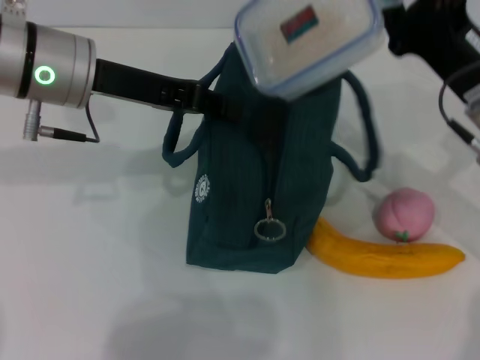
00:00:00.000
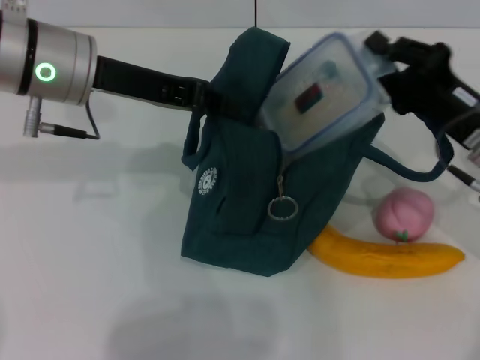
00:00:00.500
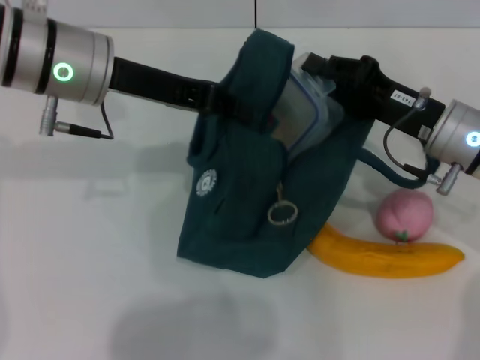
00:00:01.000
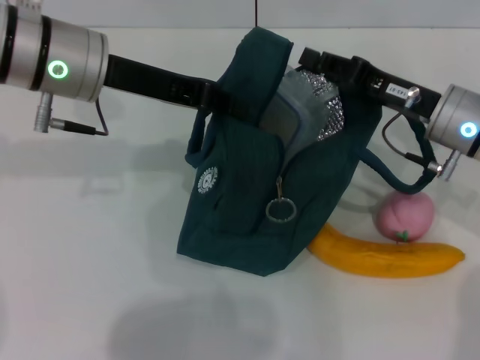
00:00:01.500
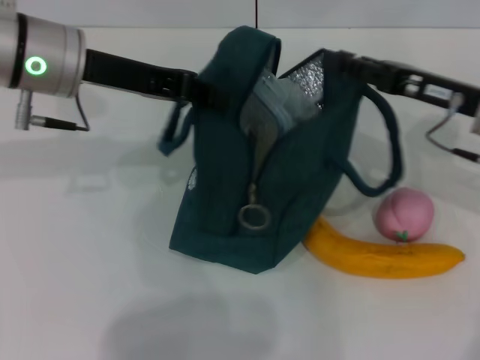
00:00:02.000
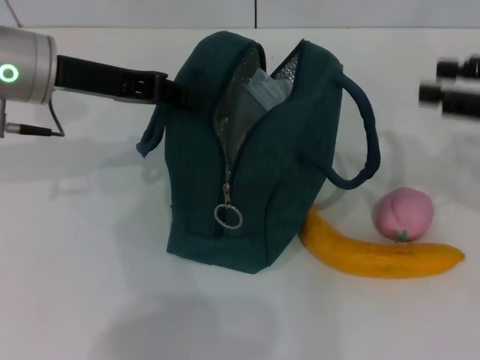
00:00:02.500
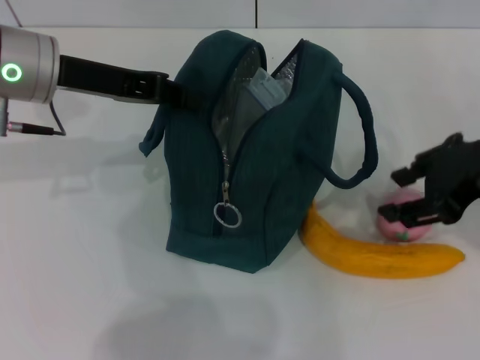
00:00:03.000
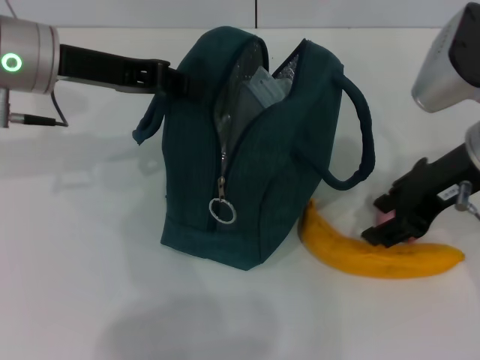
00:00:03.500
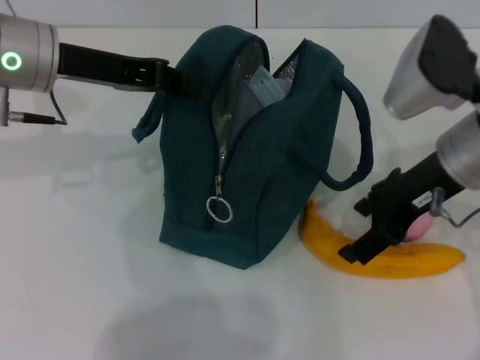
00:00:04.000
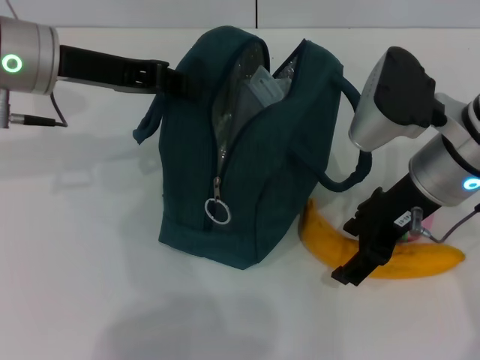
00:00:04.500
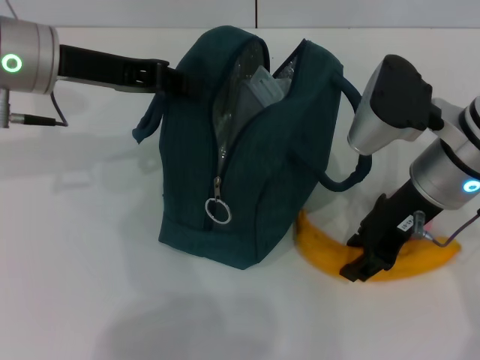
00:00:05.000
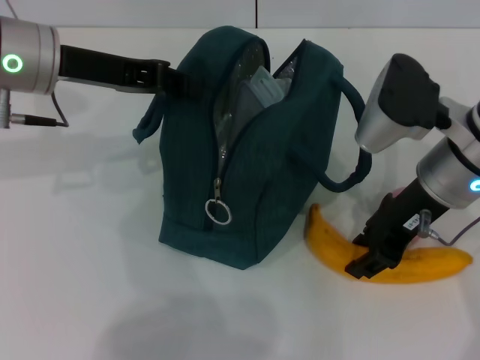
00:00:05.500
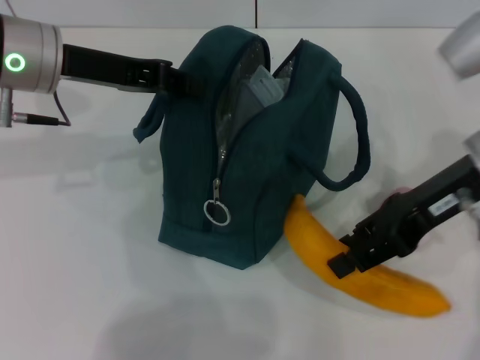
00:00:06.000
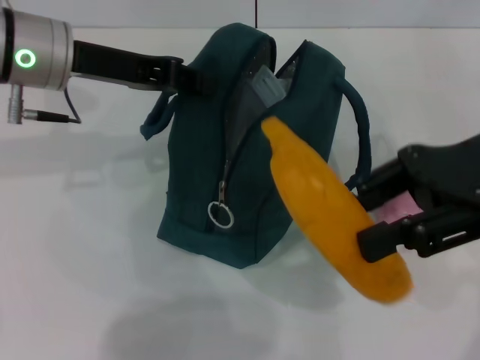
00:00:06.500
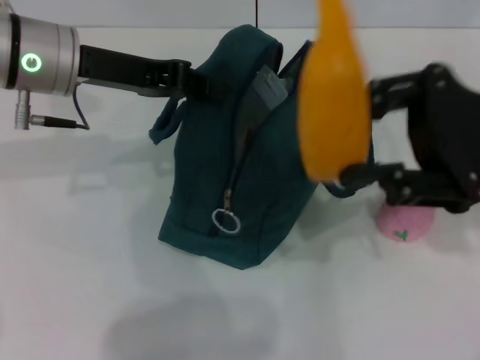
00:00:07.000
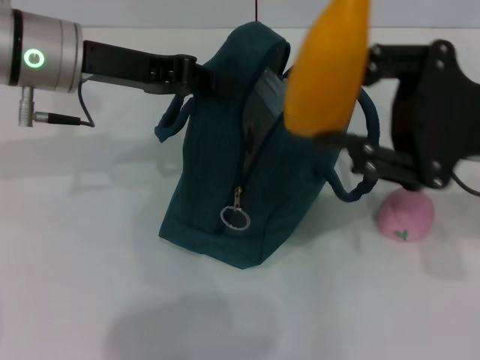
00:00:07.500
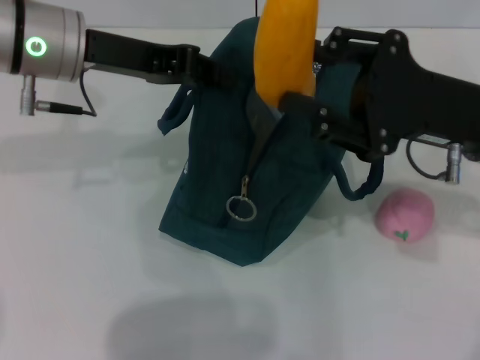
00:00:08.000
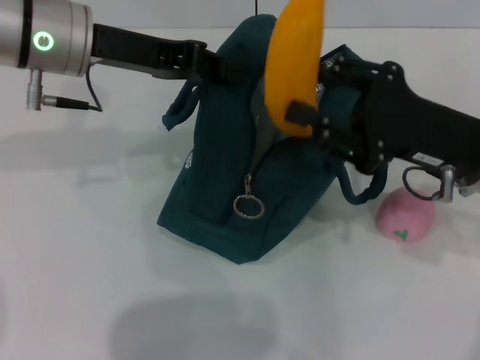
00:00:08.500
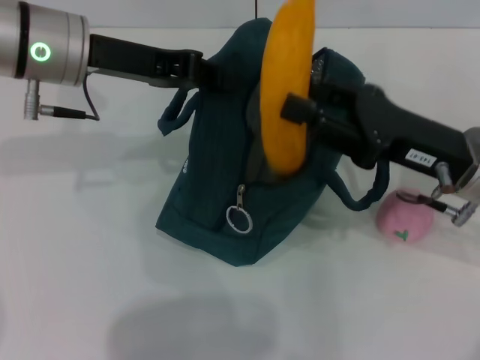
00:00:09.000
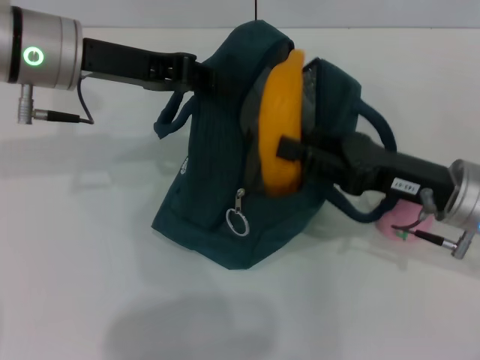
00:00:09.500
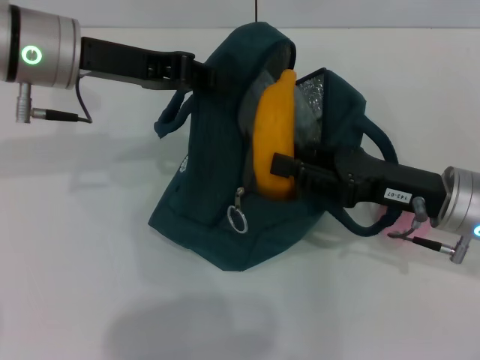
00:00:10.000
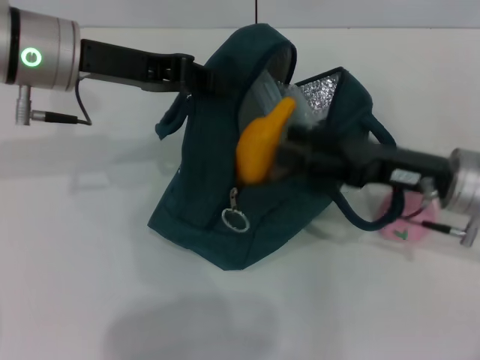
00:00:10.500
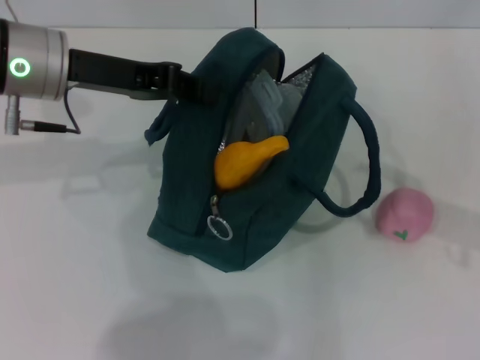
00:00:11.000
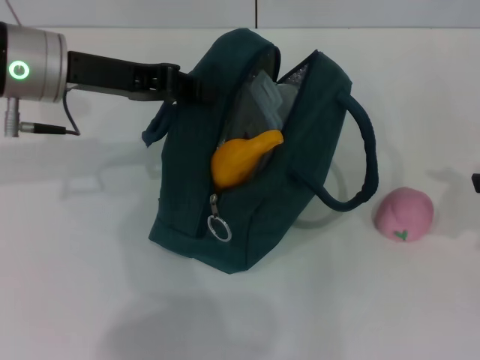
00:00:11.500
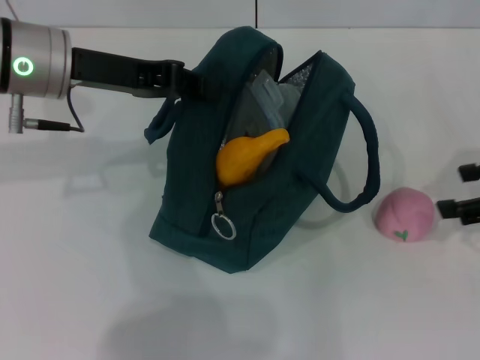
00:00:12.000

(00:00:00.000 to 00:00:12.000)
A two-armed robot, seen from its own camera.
Step, 00:00:02.000 - 00:00:05.000: Take the banana with your right hand.
Step, 00:00:05.500 - 00:00:10.500: Put the banana into the lunch bag with your right hand.
00:00:00.000 - 00:00:02.000: The right gripper opens.
00:00:02.000 - 00:00:04.000: The right gripper heads to the left and upward, covering about 10 cm, and opens its fingers.
00:00:04.000 - 00:00:06.000: The right gripper closes its fingers.
00:00:08.000 - 00:00:10.000: The right gripper is displaced downward by roughly 5 cm.
00:00:10.000 - 00:00:12.000: The right gripper travels to the right and upward by roughly 15 cm.

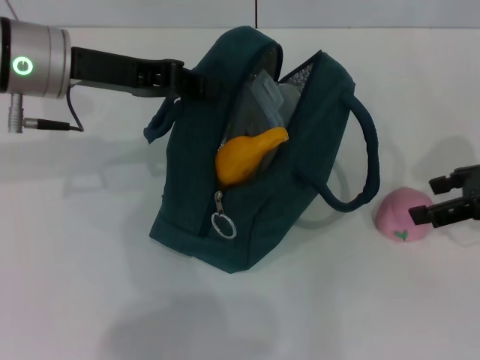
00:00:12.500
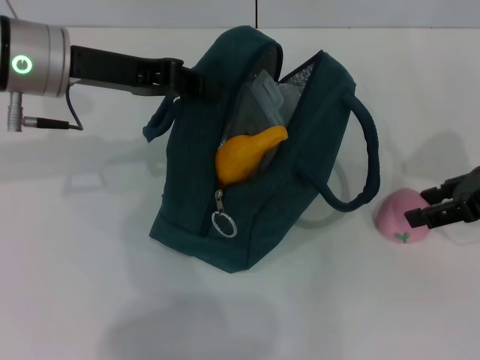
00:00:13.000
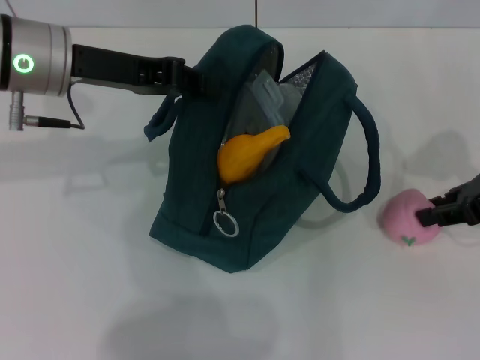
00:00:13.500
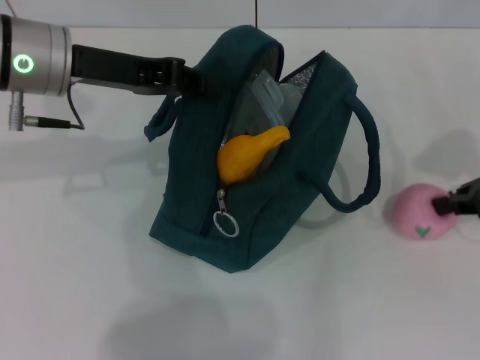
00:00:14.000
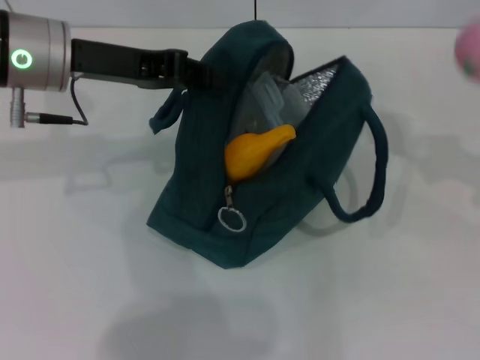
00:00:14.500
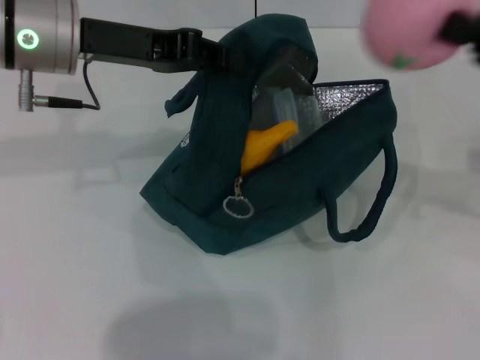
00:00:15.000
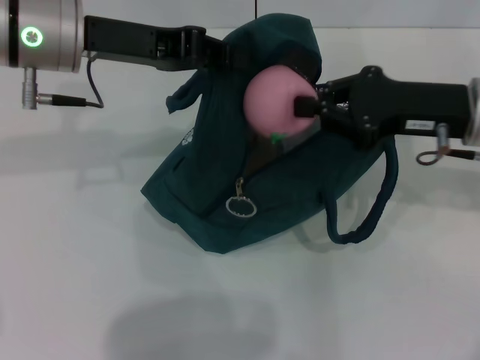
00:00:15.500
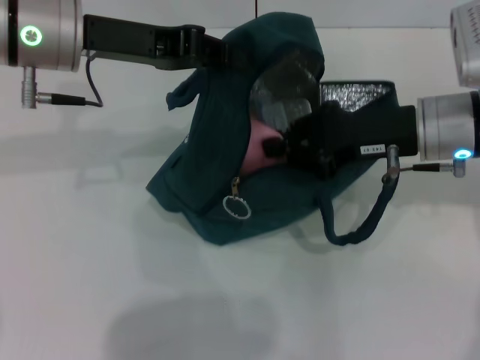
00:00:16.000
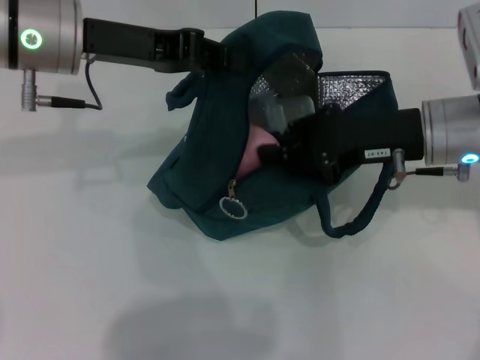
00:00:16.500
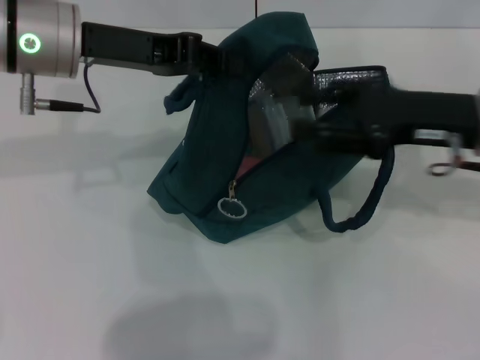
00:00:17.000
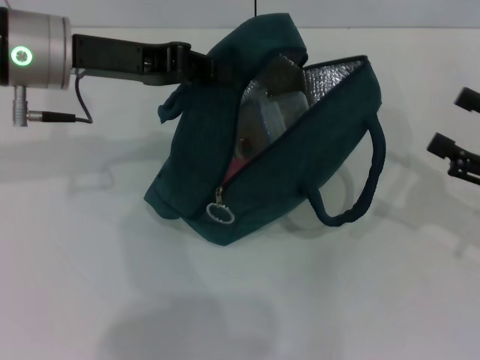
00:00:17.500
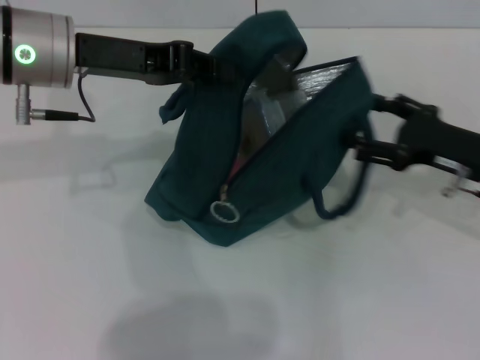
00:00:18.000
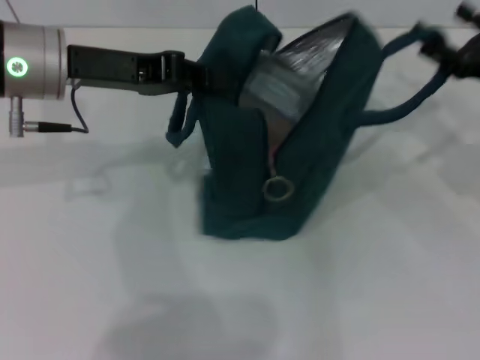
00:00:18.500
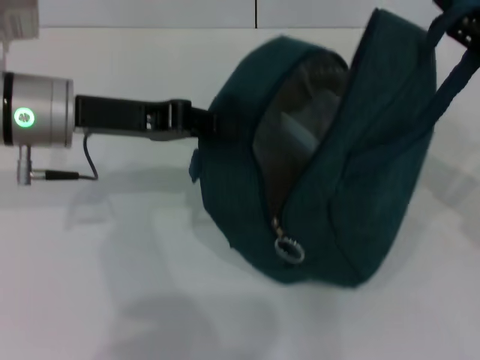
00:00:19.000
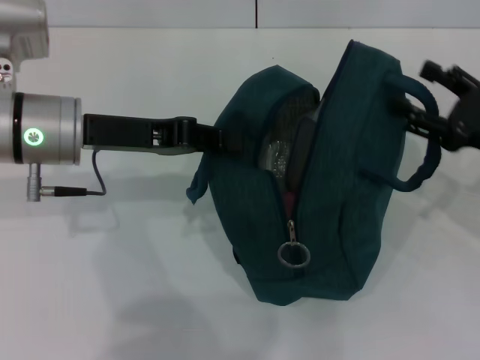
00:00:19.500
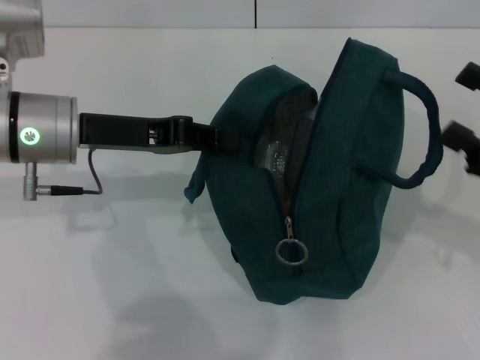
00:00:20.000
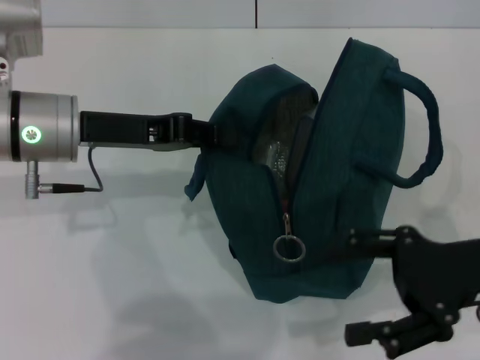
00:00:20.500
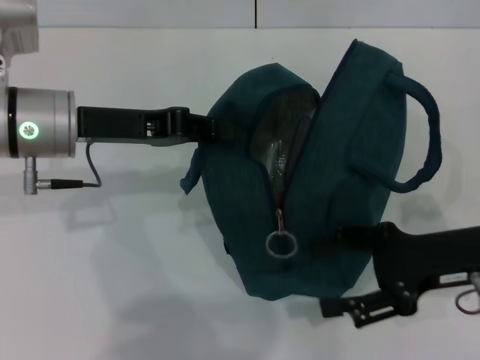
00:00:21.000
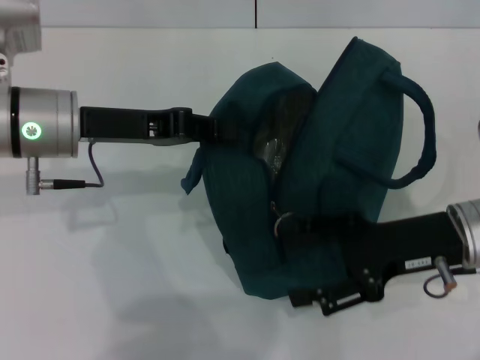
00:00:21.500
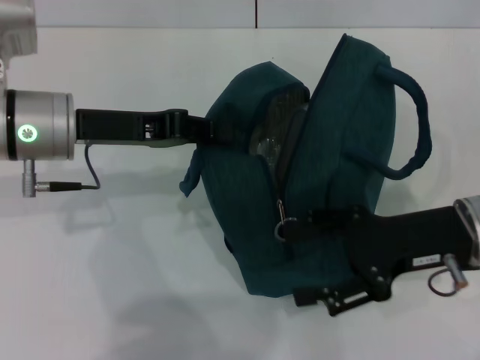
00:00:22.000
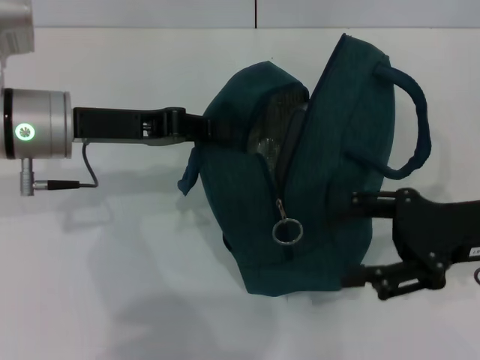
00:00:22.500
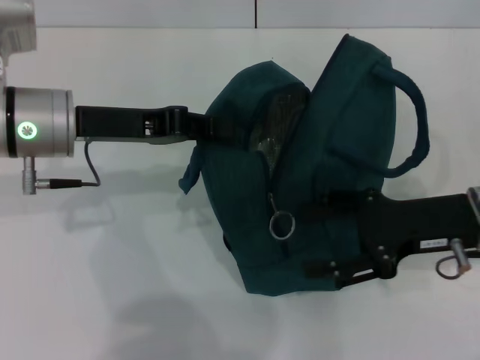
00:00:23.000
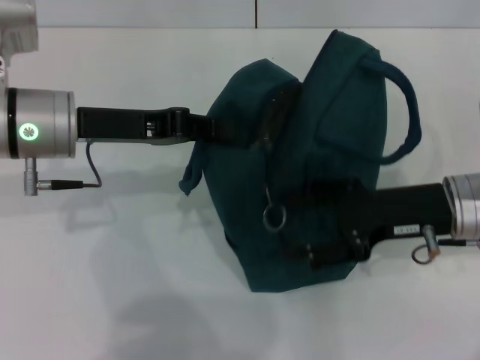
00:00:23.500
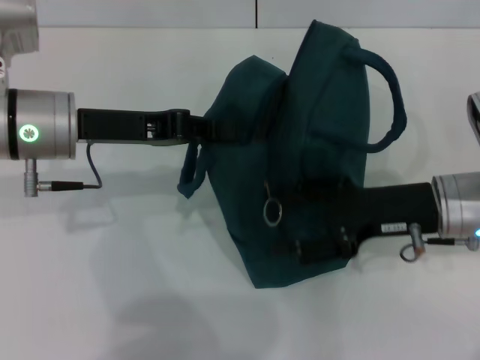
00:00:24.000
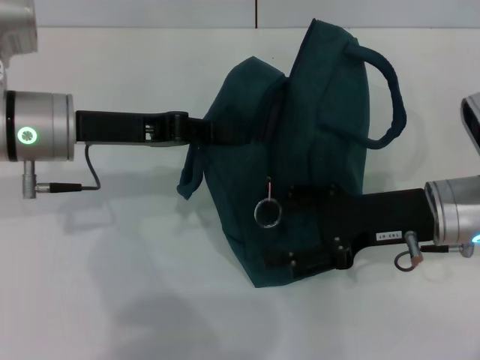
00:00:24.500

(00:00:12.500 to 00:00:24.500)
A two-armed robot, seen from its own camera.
Step, 00:00:17.000 - 00:00:20.000: Hold the lunch bag with your right hand.
00:00:12.500 - 00:00:14.500: The right gripper is displaced to the right by some 5 cm, and closes up.
00:00:14.500 - 00:00:16.500: The right gripper goes about 20 cm to the left.
00:00:16.500 - 00:00:18.500: The right gripper is displaced to the right by some 10 cm, and opens.
00:00:18.500 - 00:00:20.500: The right gripper heads backward, covering roughly 10 cm. Meanwhile the left gripper shifts by roughly 5 cm.
00:00:20.500 - 00:00:22.500: There are only small adjustments of the grippers.
00:00:22.500 - 00:00:24.500: The right gripper goes some 5 cm to the left.

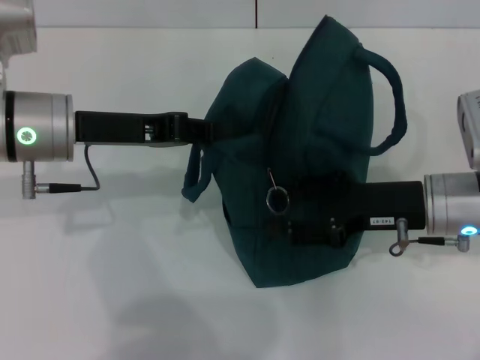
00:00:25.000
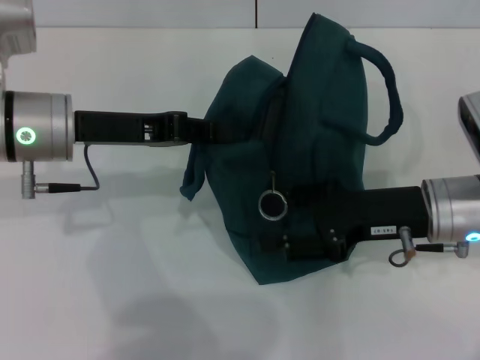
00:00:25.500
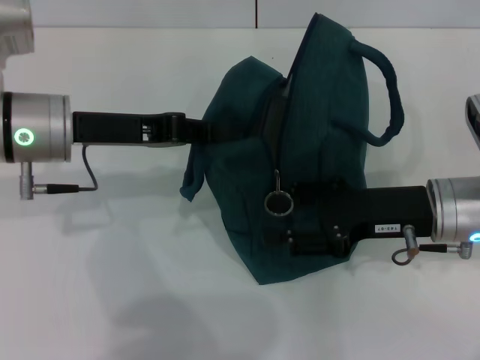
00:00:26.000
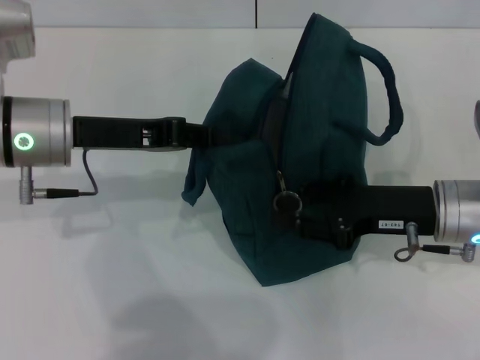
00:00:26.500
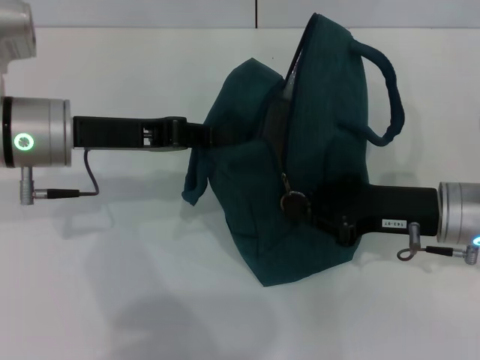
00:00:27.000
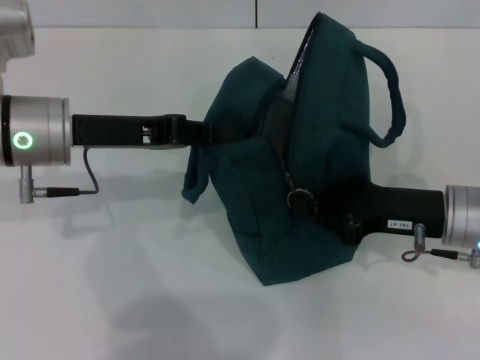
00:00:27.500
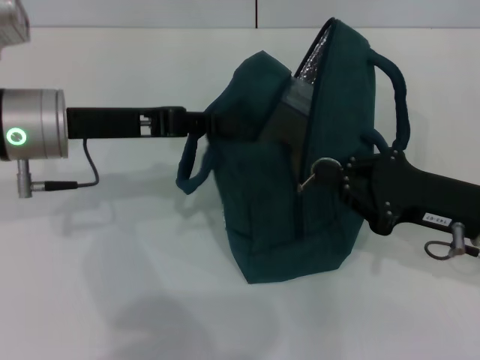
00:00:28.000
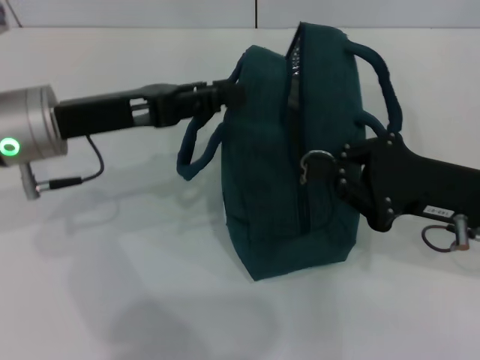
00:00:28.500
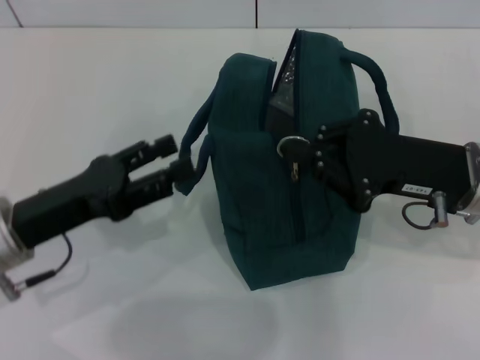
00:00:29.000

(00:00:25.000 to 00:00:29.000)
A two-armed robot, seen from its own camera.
Step, 00:00:25.000 - 00:00:28.500: Hold the lunch bag with your left hand.
00:00:25.000 - 00:00:27.000: The right gripper closes up.
00:00:27.000 - 00:00:29.000: The left gripper shifts about 10 cm backward and downward, and opens.
